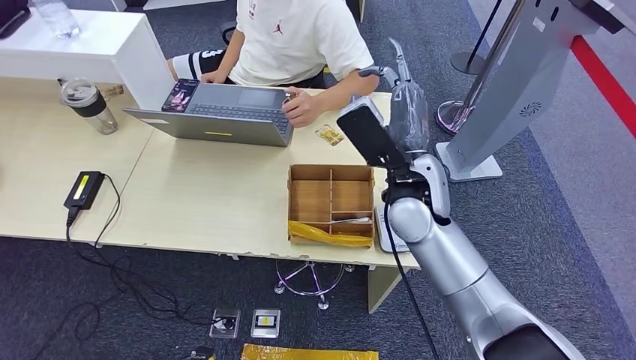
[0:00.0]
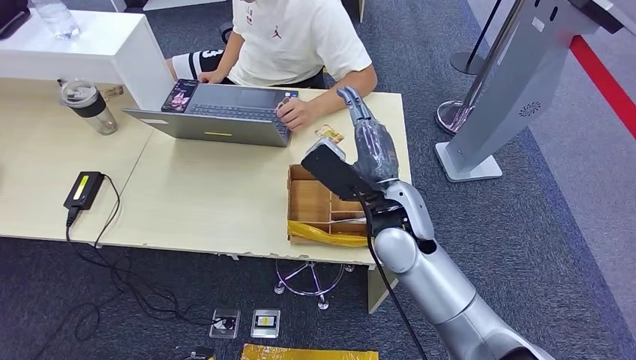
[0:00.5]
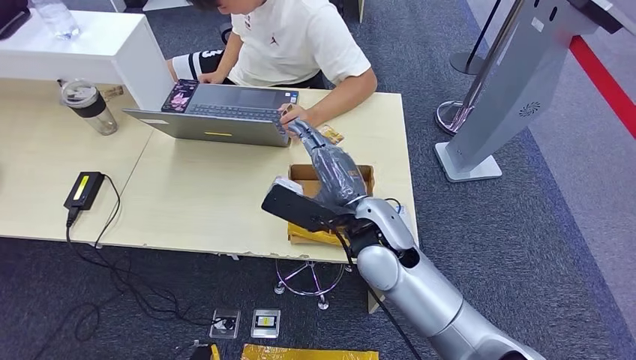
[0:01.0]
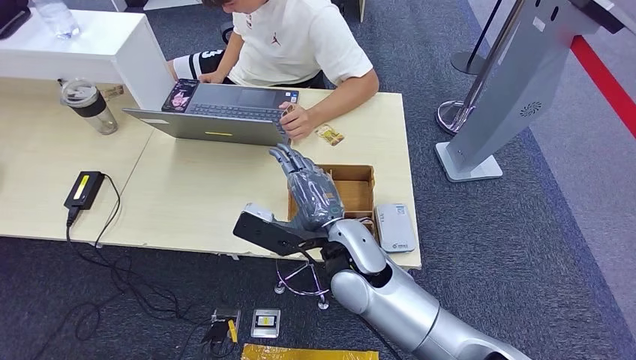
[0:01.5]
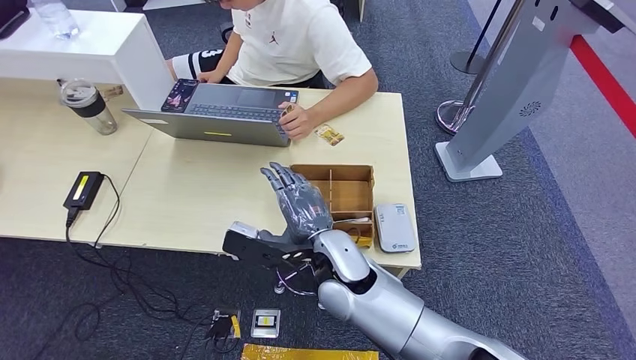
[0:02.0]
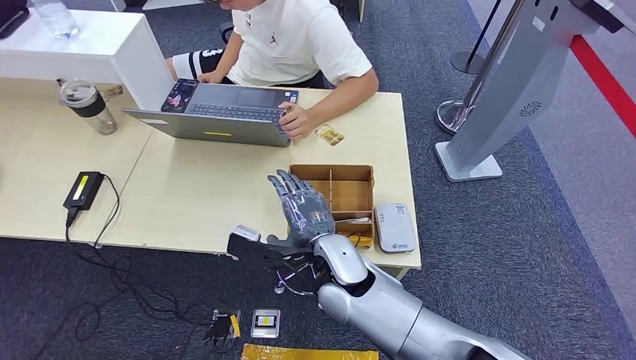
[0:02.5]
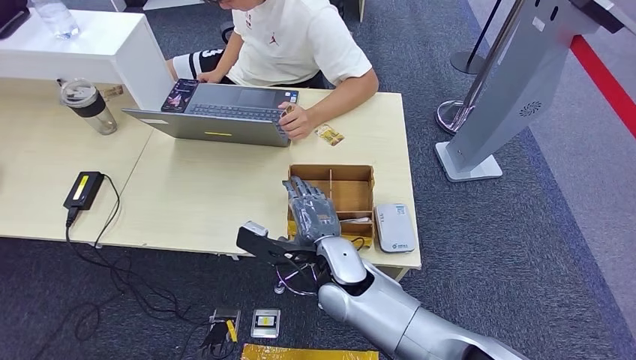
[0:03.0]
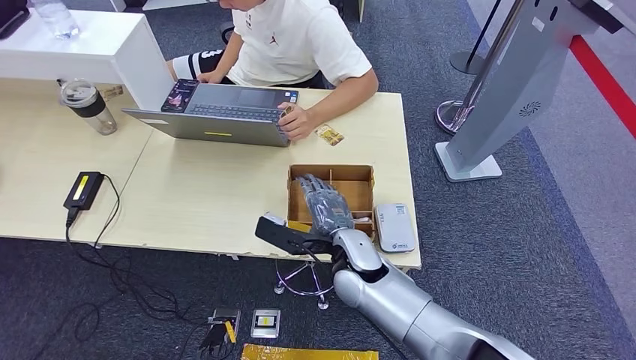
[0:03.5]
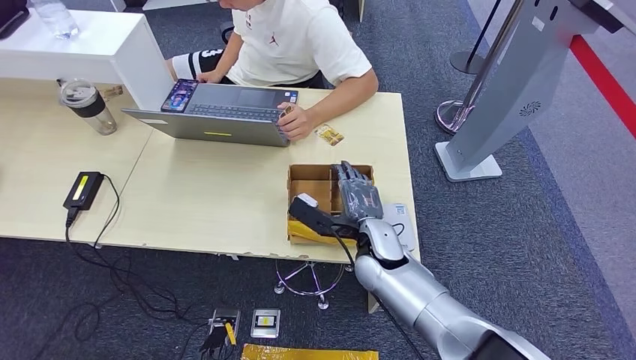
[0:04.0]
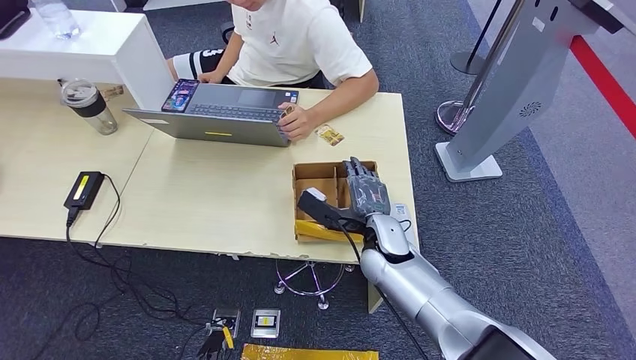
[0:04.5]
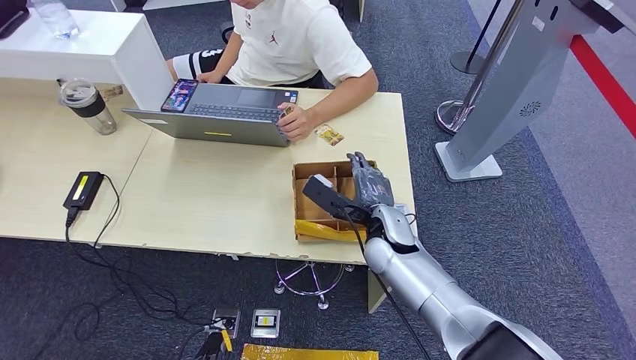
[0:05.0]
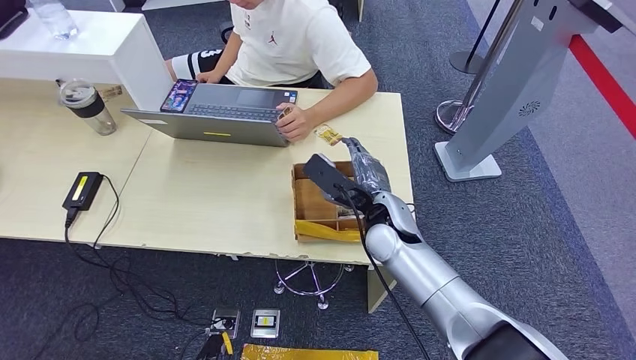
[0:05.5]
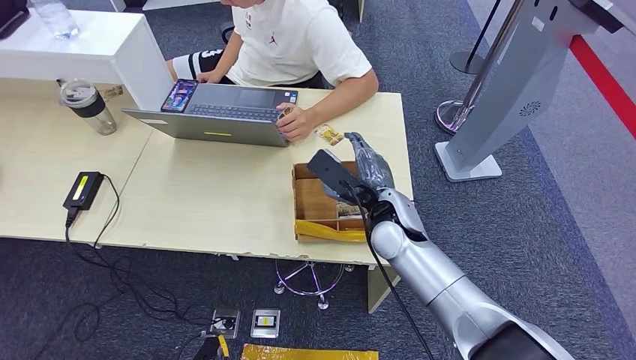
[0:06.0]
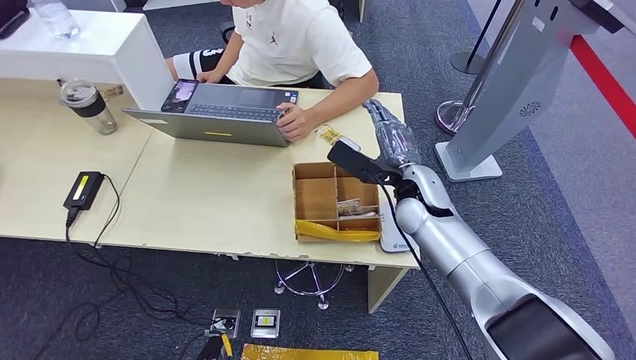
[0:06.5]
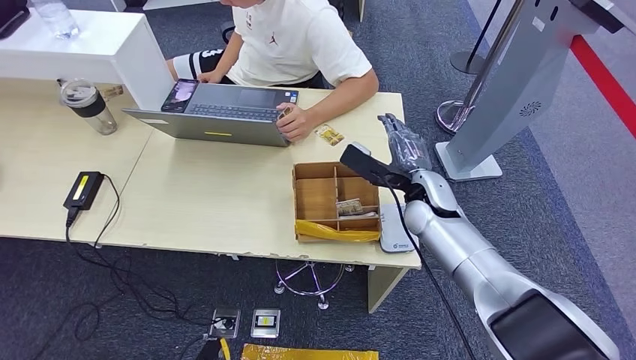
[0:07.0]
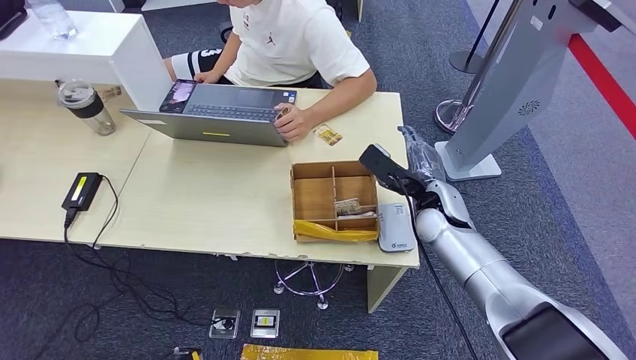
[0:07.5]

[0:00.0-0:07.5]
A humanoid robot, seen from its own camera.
Step, 0:00.0 to 0:07.5: Hand the room key to the person.
0:00.0 to 0:02.0: The left hand is displaced forward by approximately 10 cm; the right hand shifts approximately 15 cm to the left, downward and backward.
0:02.0 to 0:04.0: The right hand heads to the right and downward, covering some 10 cm.
0:04.0 to 0:05.5: The right hand shifts by roughly 5 cm.
0:05.5 to 0:07.5: The right hand moves to the right, about 10 cm; the left hand goes roughly 5 cm to the left.
